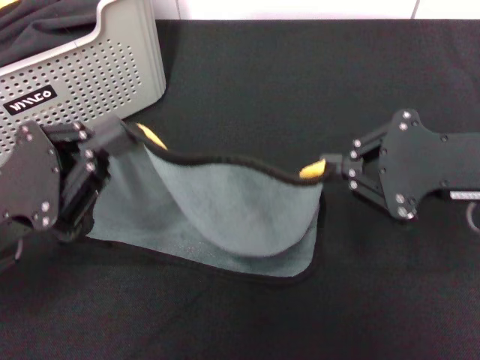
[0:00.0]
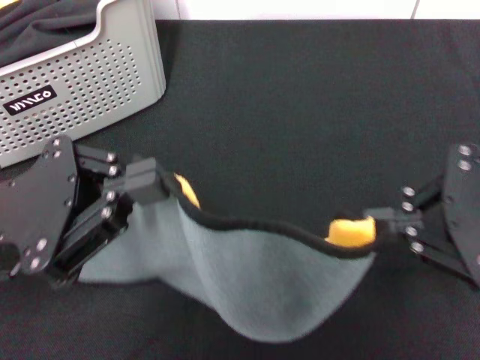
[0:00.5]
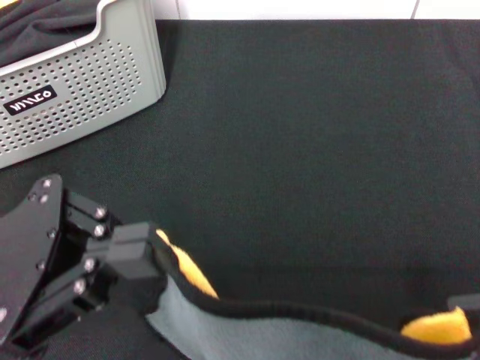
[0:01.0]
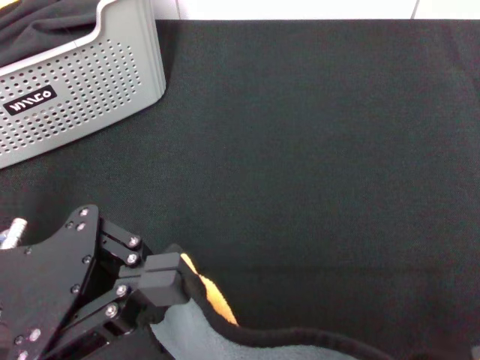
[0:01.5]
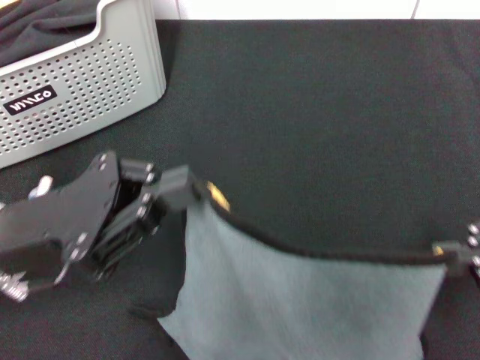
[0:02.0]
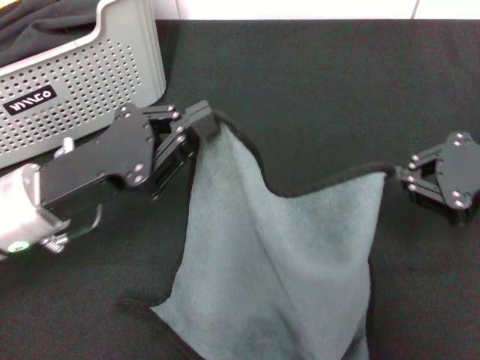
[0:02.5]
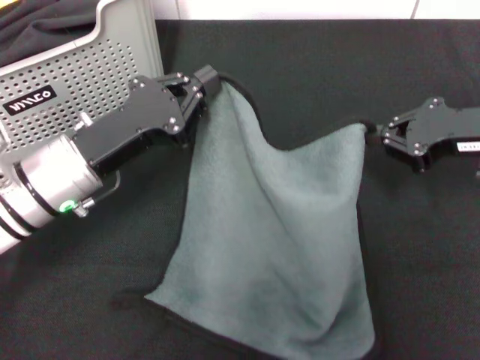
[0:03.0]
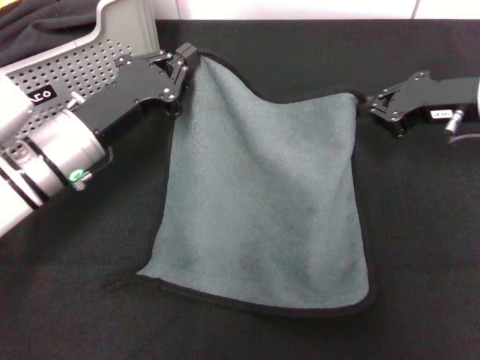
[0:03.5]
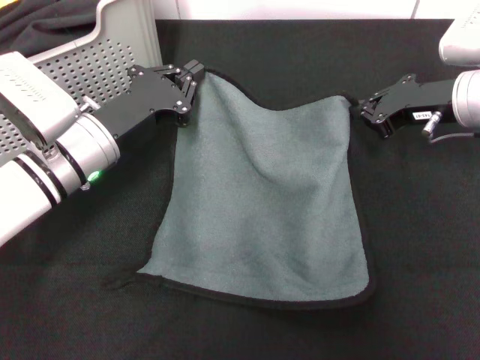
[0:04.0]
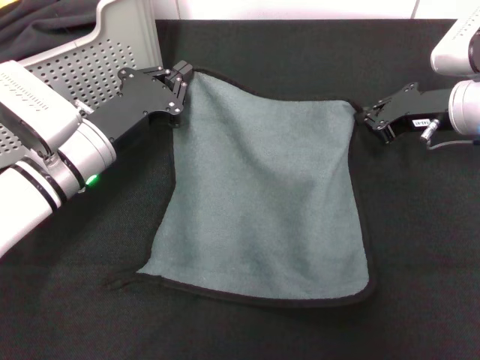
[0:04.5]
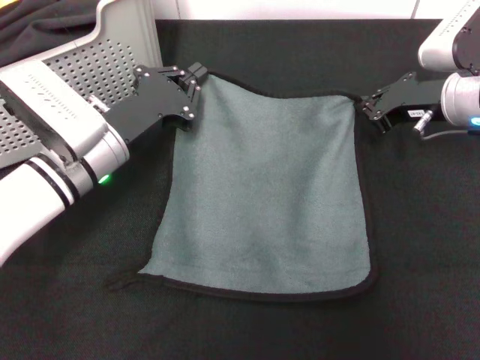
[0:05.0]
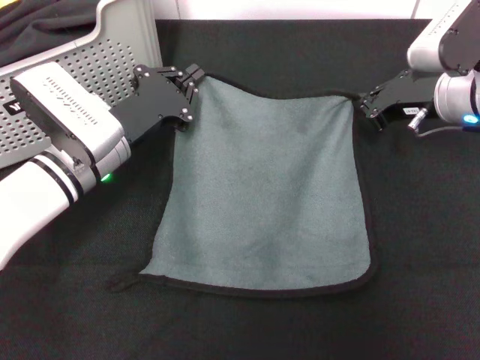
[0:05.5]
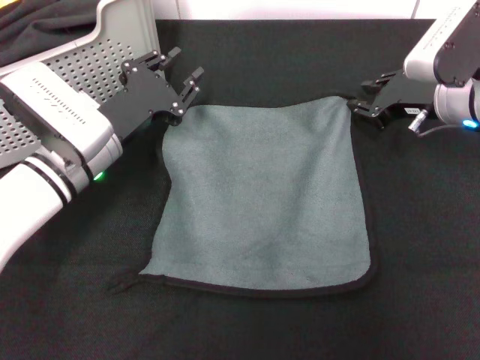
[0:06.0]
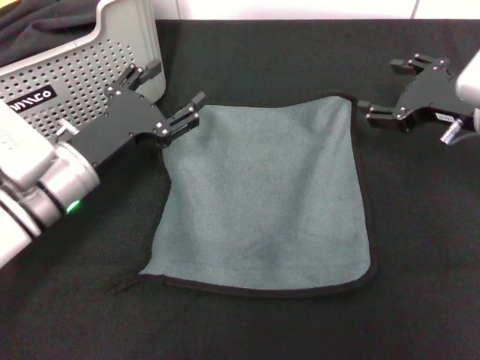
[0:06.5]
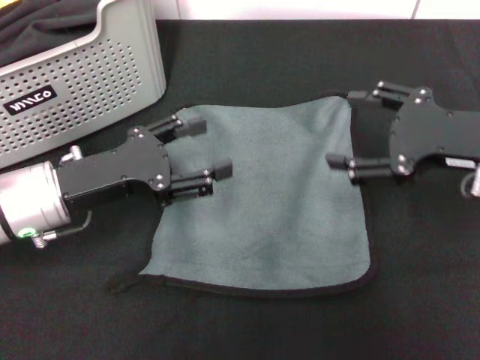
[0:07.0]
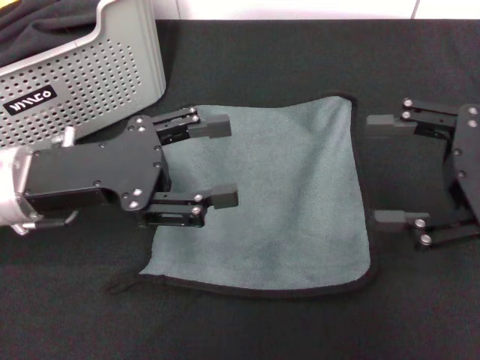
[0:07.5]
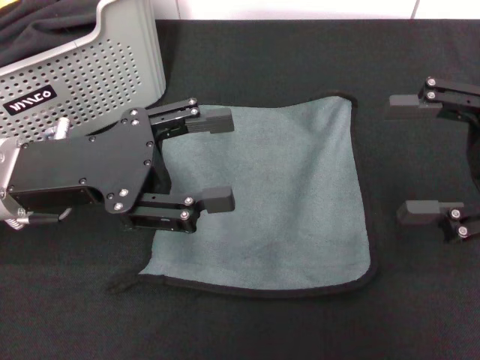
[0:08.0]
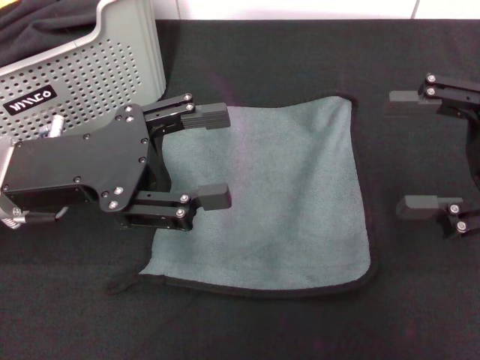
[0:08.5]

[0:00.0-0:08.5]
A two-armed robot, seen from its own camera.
Task of the whole recording: pick up the towel from the storage box and lay it flat on the black tablecloth.
Step, 0:00.0 to 0:06.0: Spread the towel flat with the right gripper.
0:00.0 to 0:02.0: The right gripper heads to the right, covering some 10 cm.
0:02.0 to 0:04.0: The left gripper shifts approximately 15 cm forward and downward, while the right gripper heads forward, downward and to the left, covering roughly 20 cm.
0:04.0 to 0:06.5: The left gripper opens its fingers. Meanwhile the right gripper opens.
0:06.5 to 0:08.5: The right gripper travels backward and upward by roughly 10 cm; the left gripper heads upward, covering about 10 cm.
